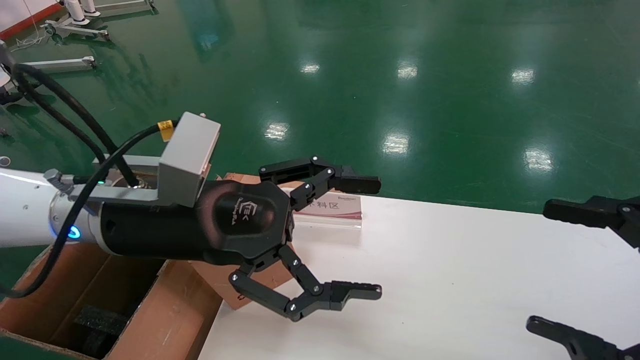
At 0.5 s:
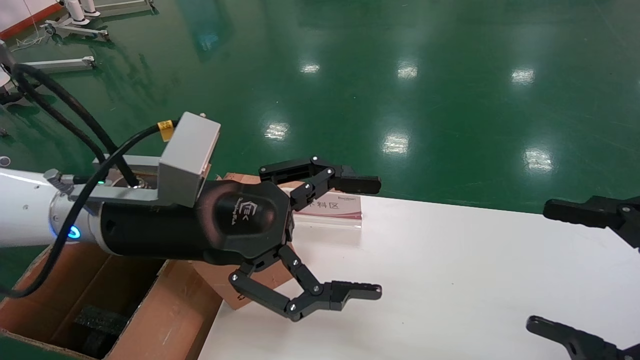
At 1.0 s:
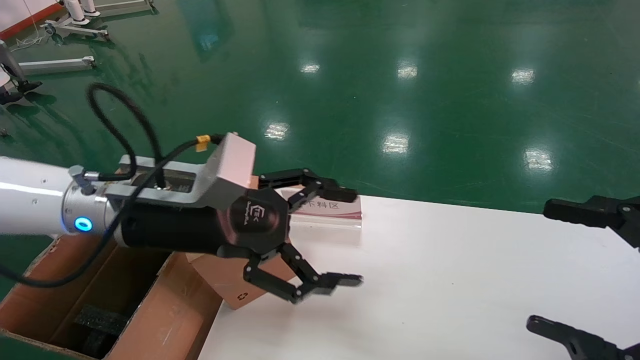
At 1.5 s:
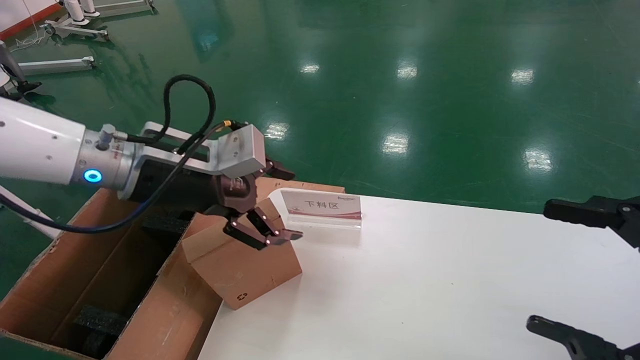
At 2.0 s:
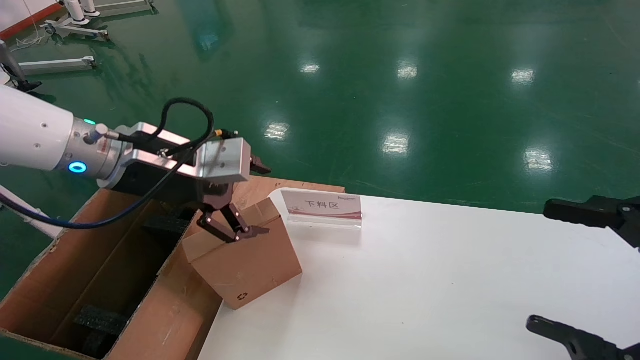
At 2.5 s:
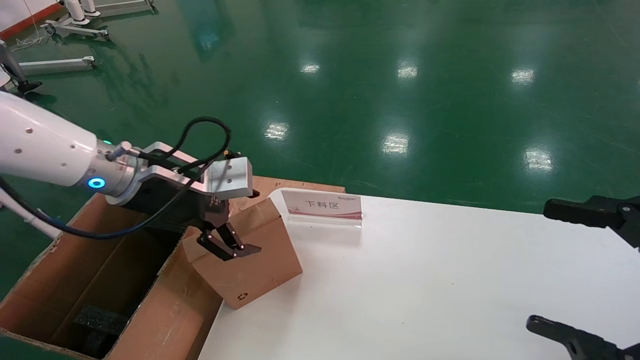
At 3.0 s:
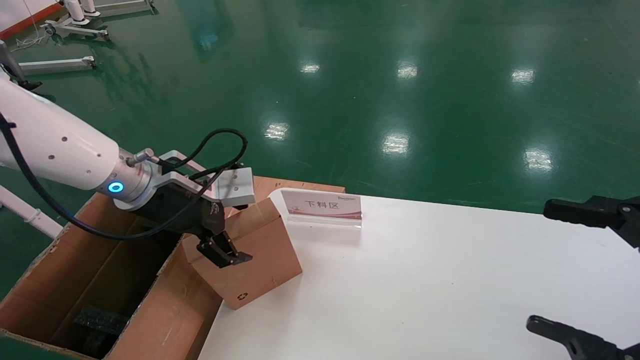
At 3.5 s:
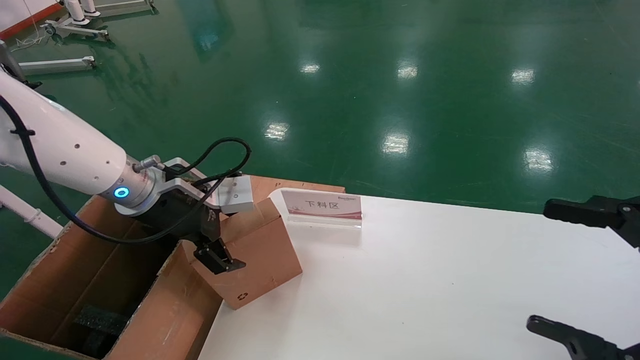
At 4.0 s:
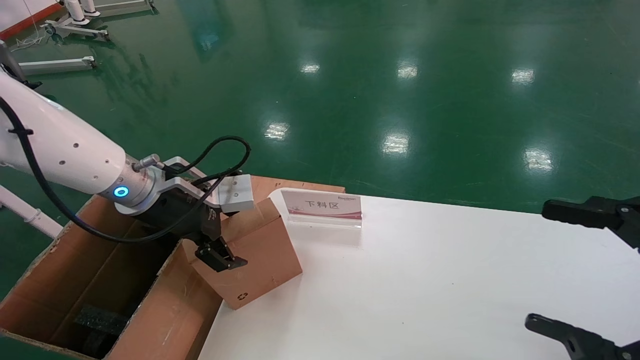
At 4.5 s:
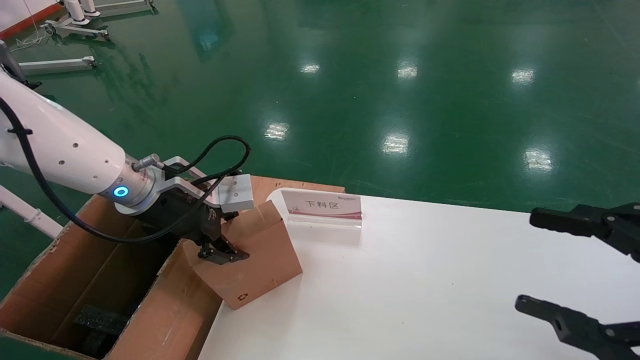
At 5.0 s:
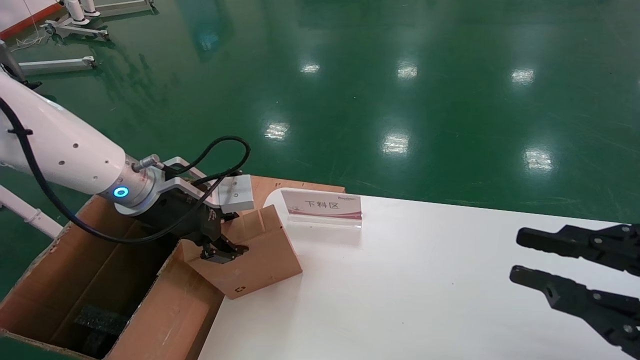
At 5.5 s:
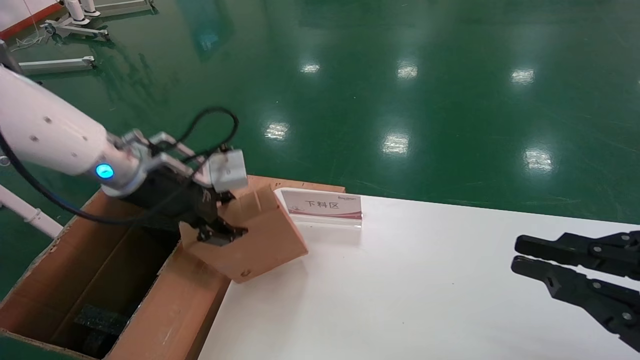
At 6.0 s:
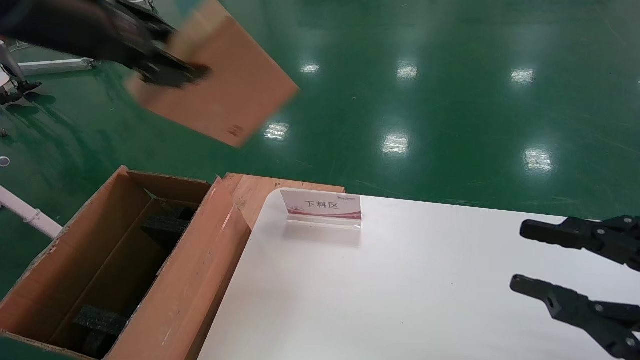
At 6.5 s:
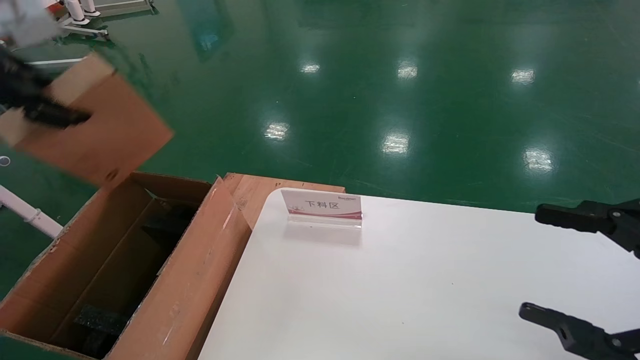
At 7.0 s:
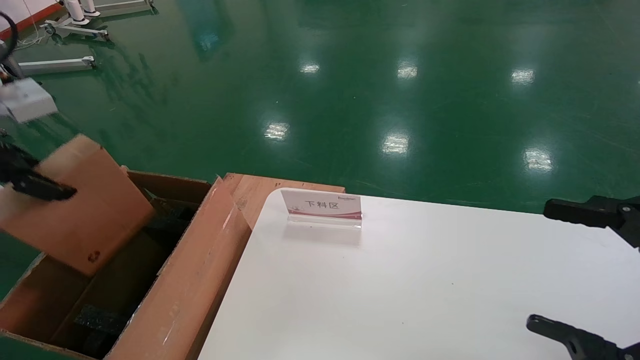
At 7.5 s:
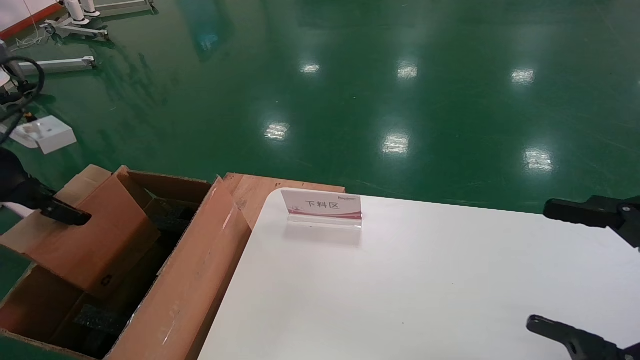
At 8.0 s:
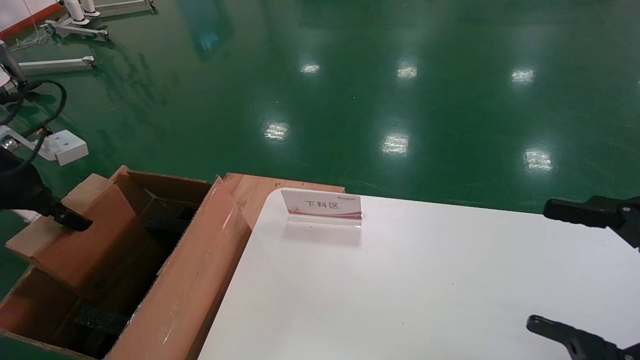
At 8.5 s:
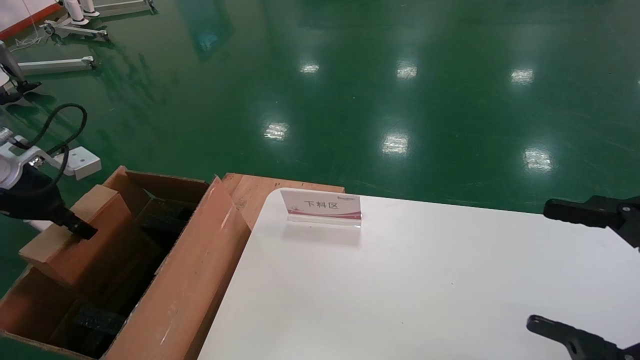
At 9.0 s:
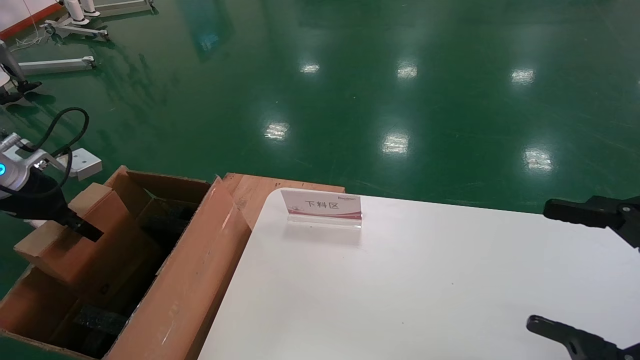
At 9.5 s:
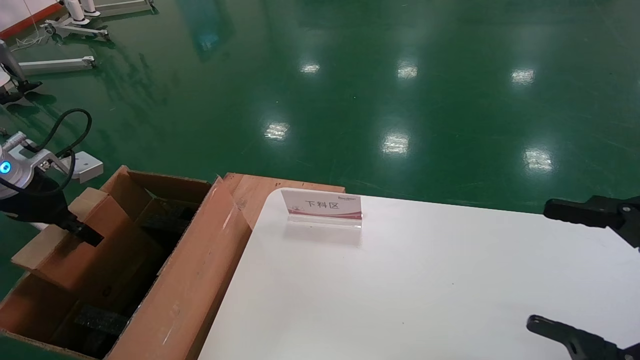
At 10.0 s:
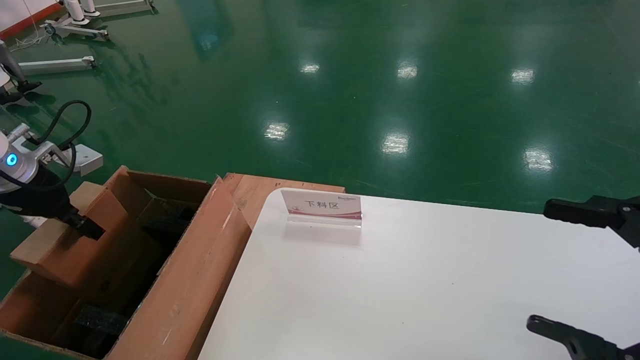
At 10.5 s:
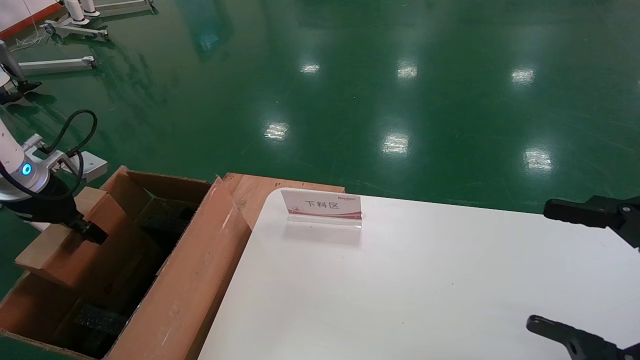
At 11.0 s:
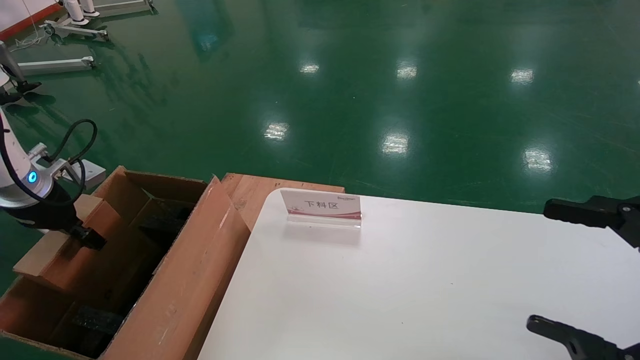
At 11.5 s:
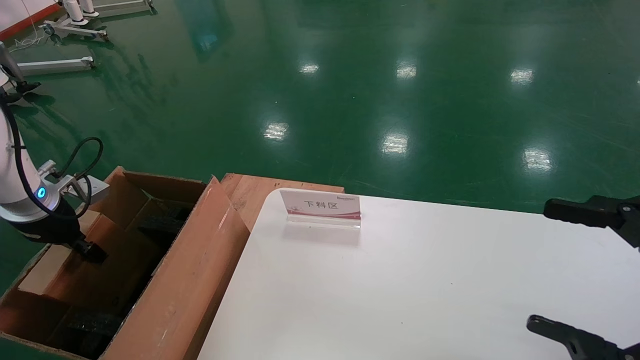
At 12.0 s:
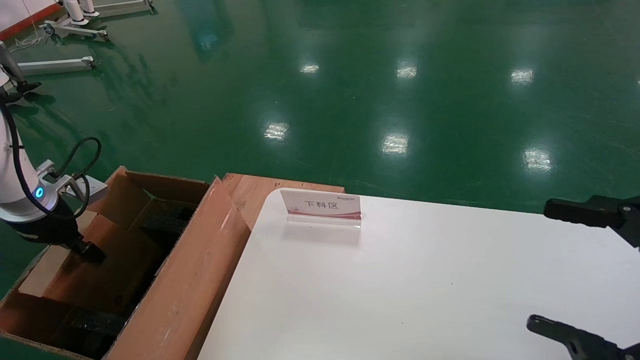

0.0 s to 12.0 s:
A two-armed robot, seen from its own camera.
Task of the whole recording: pick up the small cardboard box and load it into the large cardboard box.
Step, 1.0 to 4.5 s: Pick up the mouse and power cord box.
0.0 to 2.0 s: The left gripper travels to the left and forward by some 10 cm.
2.0 to 4.0 s: The left gripper moves approximately 5 cm.
4.0 to 6.0 s: The left gripper goes some 20 cm upward, and closes its fingers; the right gripper closes.
6.0 to 8.0 s: The right gripper opens up. The left gripper shifts approximately 25 cm to the left and downward.
8.0 to 10.0 s: The left gripper moves some 5 cm.
10.0 to 12.0 s: The left gripper is displaced downward by roughly 5 cm.

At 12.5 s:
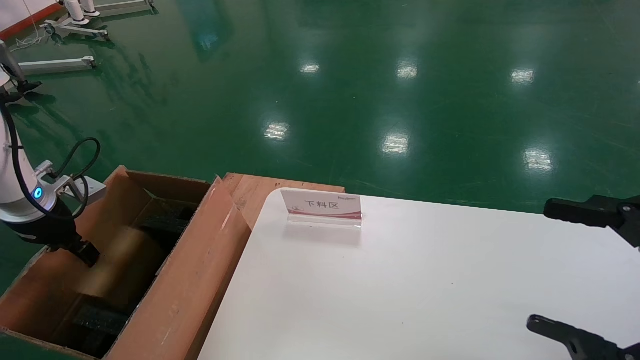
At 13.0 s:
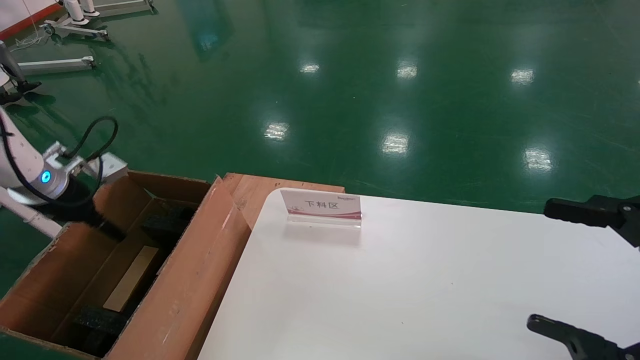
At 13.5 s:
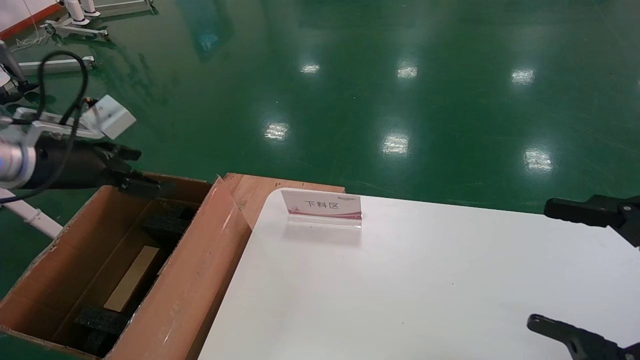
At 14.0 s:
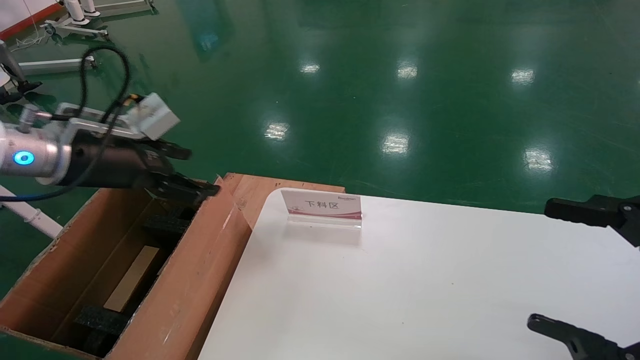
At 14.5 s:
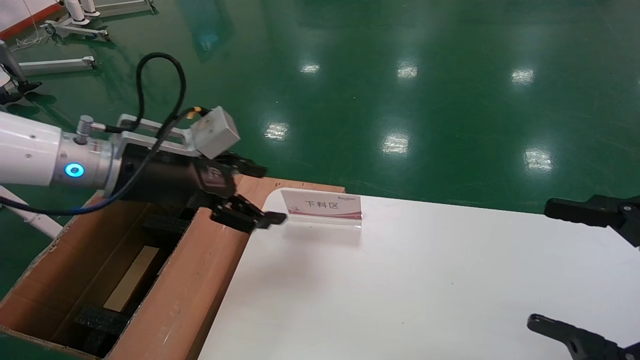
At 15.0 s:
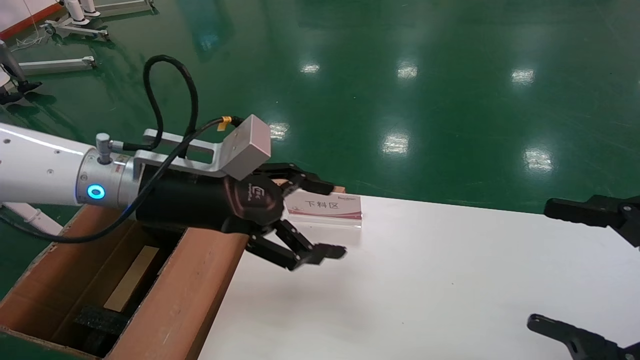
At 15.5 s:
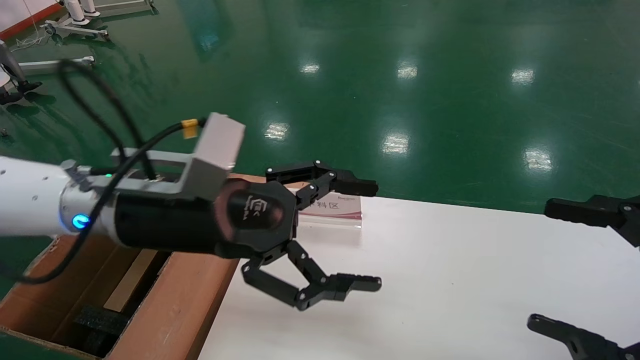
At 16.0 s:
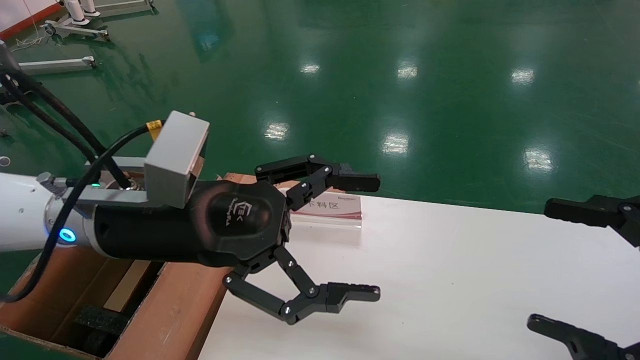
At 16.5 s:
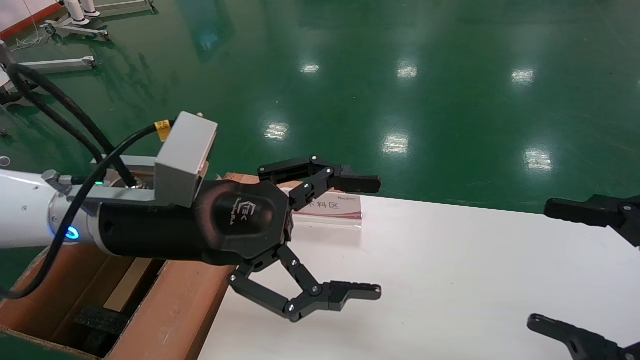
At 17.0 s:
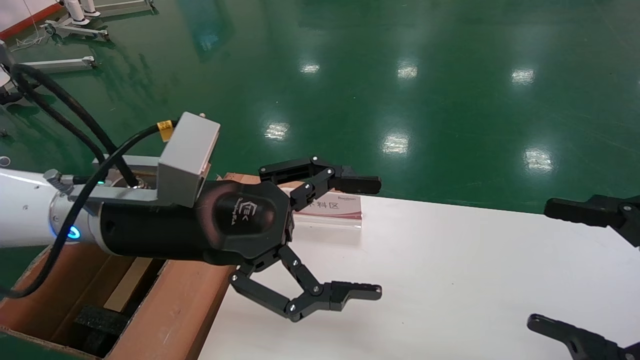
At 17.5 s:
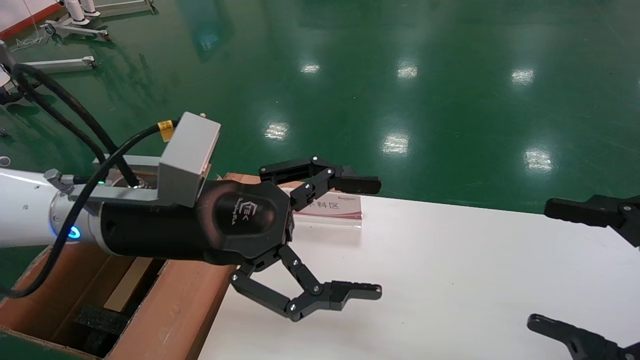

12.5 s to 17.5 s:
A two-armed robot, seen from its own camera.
Task of the whole recording: pick up the small cardboard box and load it into the large cardboard box.
12.5 to 15.0 s: The left gripper moves to the right, about 30 cm, and opens its fingers.
